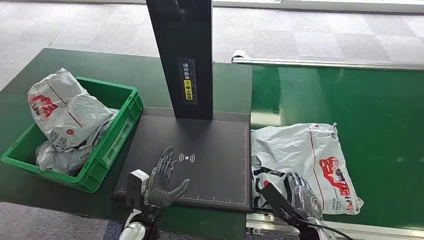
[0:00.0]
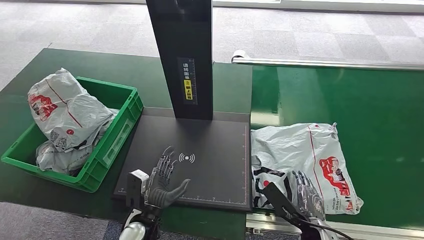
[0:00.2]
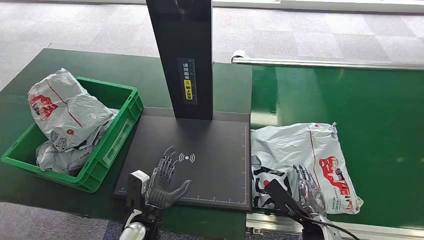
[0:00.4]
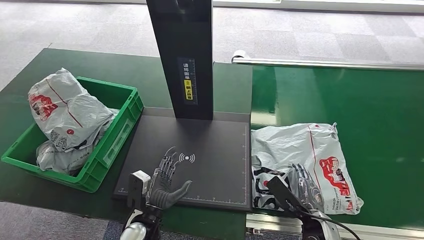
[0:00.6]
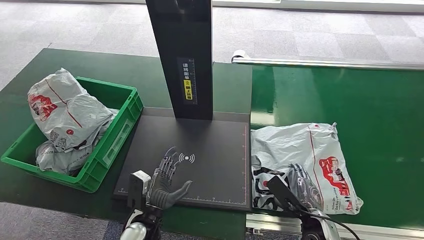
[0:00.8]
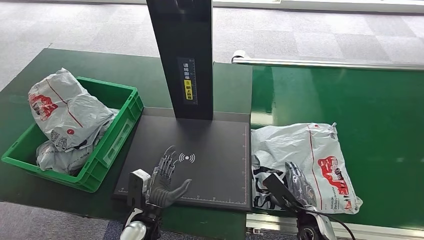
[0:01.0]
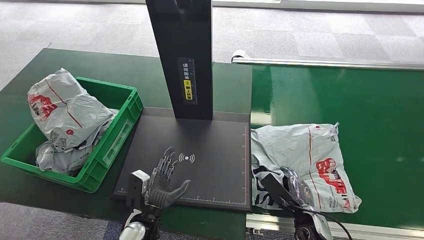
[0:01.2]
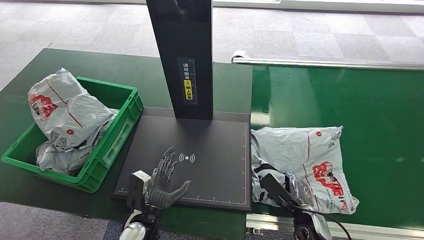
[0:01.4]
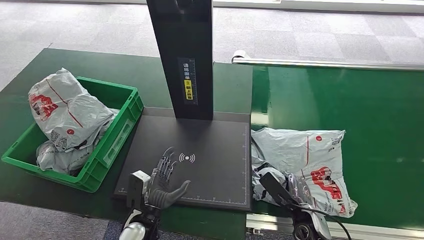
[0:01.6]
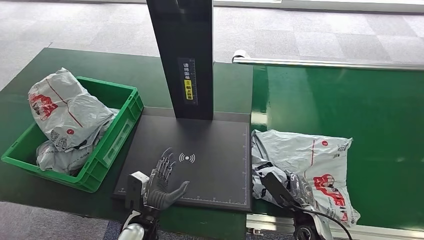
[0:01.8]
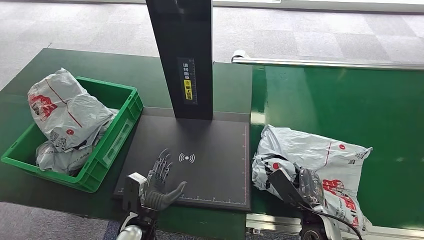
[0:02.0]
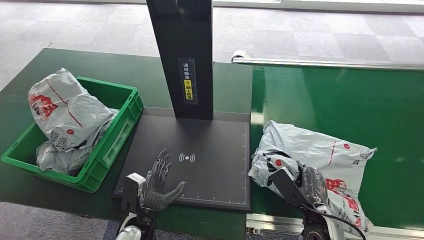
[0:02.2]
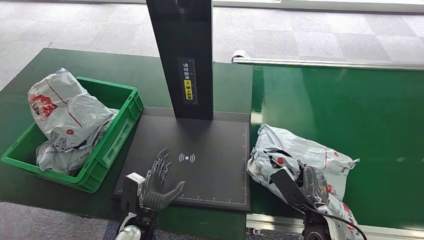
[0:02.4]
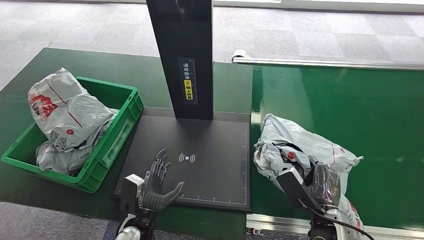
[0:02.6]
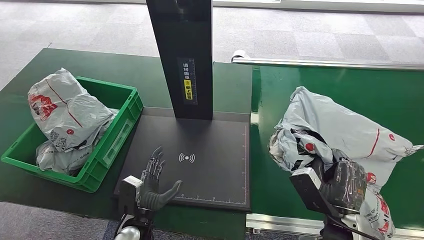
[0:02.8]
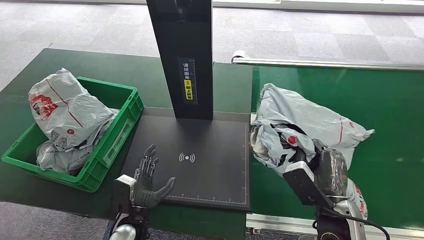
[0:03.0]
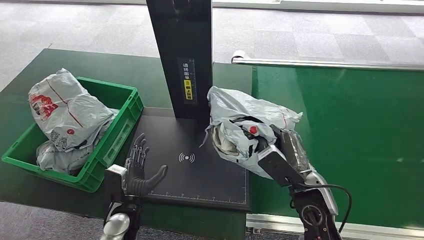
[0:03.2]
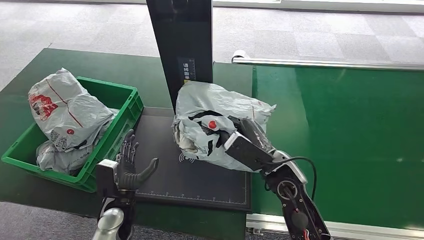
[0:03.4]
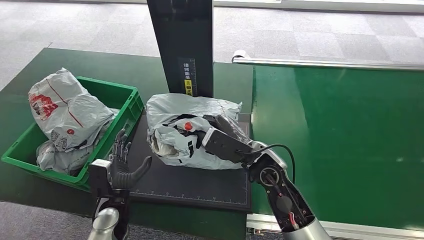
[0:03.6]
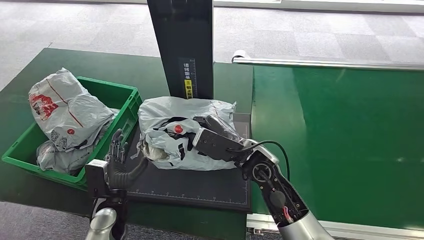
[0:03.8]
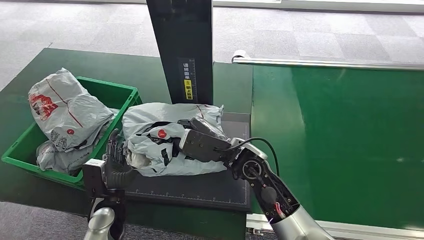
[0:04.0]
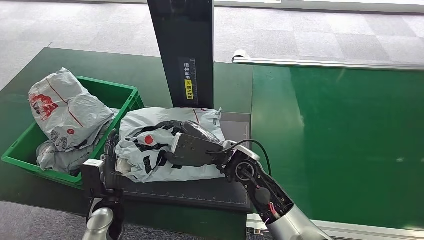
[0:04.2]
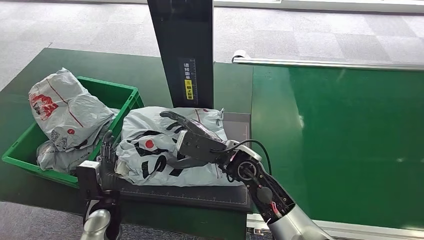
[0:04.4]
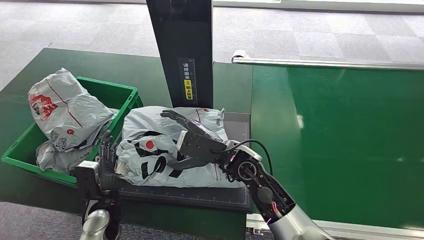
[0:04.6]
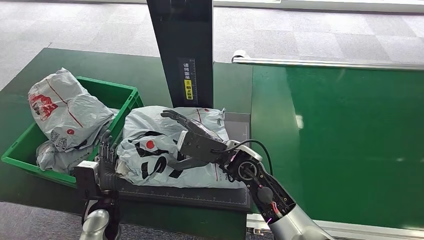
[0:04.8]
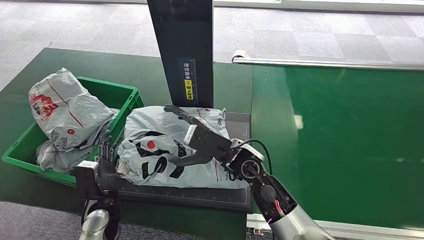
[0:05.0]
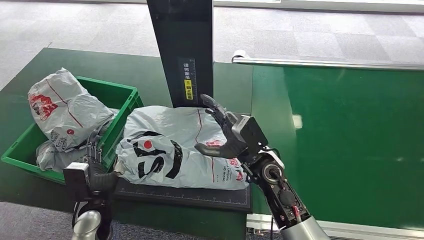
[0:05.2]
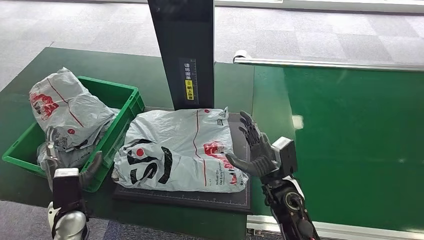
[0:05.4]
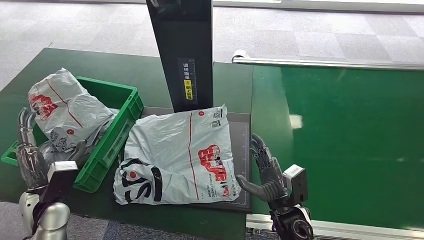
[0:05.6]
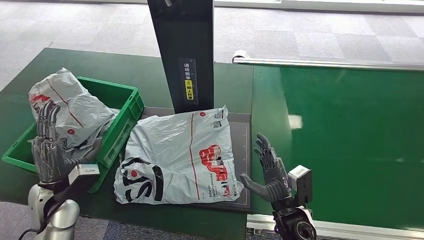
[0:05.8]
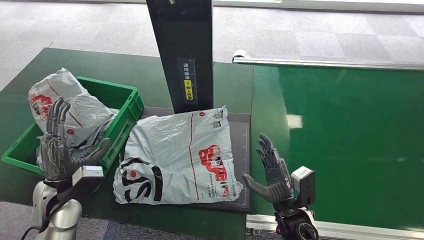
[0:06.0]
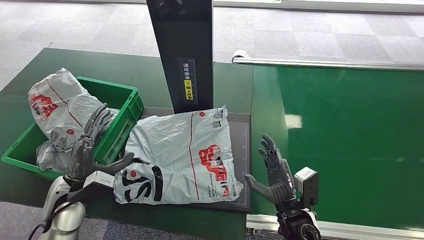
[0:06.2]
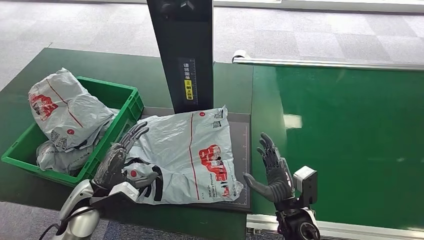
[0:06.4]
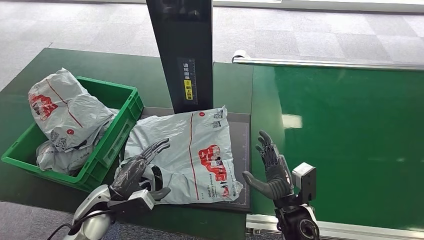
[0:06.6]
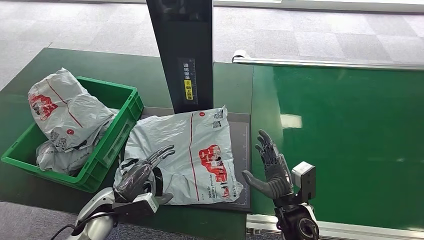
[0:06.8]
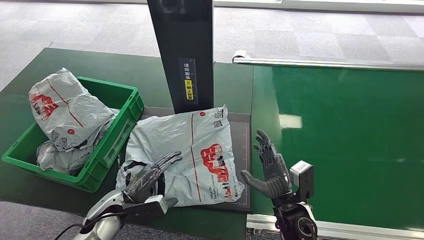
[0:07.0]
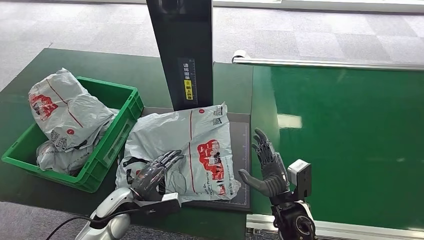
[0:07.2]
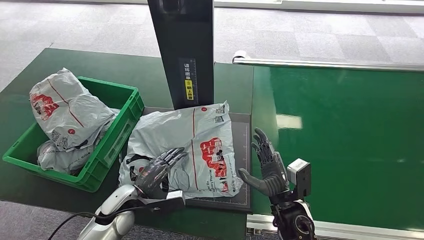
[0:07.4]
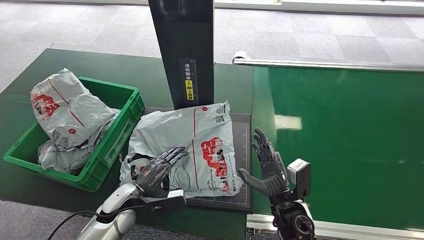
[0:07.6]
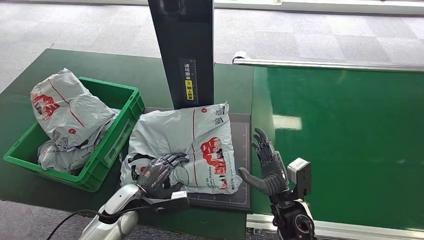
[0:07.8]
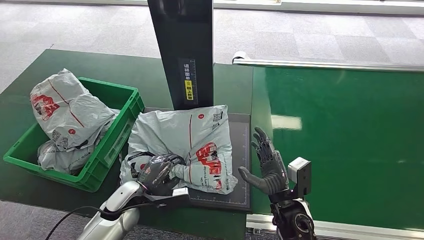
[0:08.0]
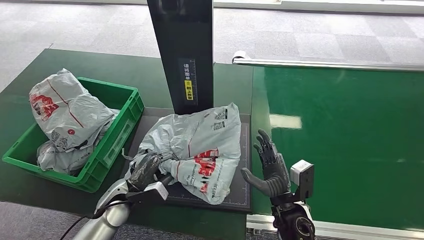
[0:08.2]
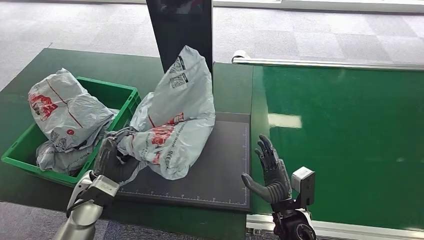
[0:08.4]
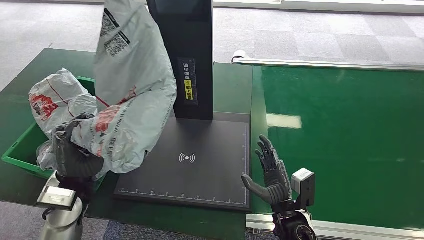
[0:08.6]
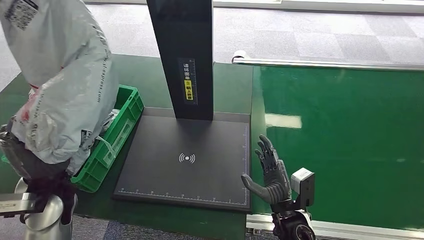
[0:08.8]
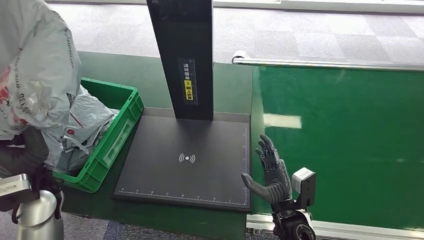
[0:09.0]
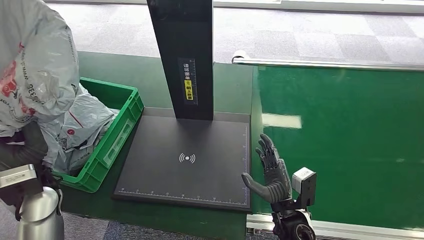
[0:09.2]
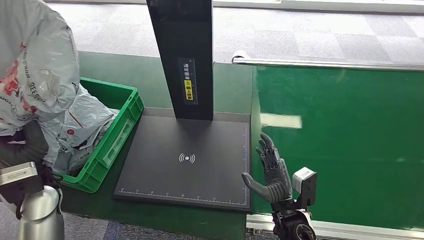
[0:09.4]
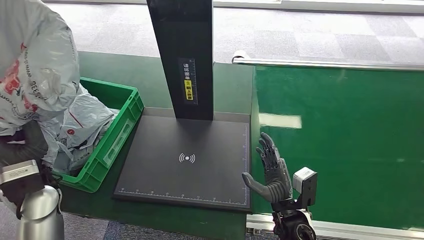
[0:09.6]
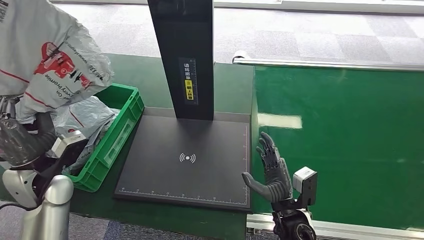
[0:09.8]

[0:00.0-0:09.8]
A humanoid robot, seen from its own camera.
Step, 0:00.0 to 0:03.2: Pick up the package from the conveyor belt.
Step, 0:03.6 to 0:05.4: Place the package onto the inbound machine.
Step, 0:05.6 to 0:09.0: Pick up the package from the inbound machine.
0:01.4 to 0:02.8: The right hand shifts approximately 10 cm upward.
0:04.2 to 0:05.6: The right hand travels to the right, downward and backward by approximately 20 cm. The left hand is displaced to the left and upward by approximately 15 cm.
0:05.6 to 0:07.0: The left hand shifts approximately 10 cm to the right.
0:07.0 to 0:08.4: The left hand heads upward, covering about 5 cm.

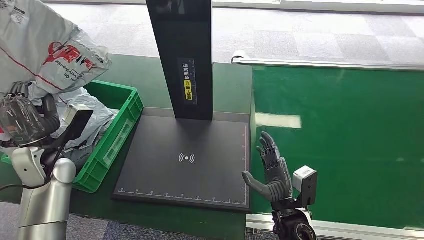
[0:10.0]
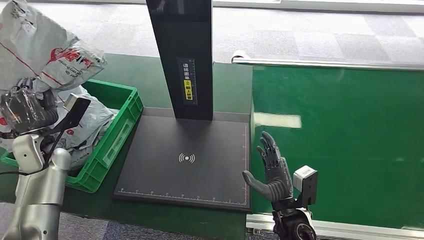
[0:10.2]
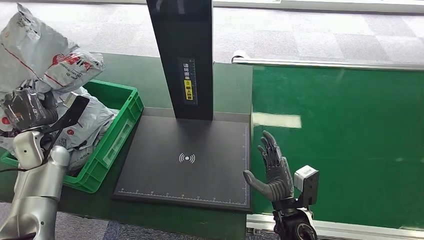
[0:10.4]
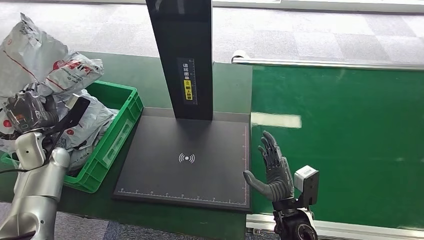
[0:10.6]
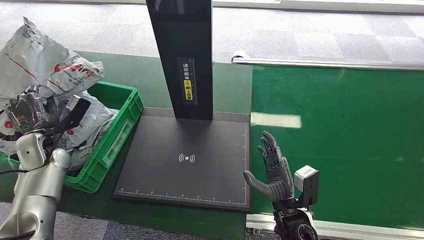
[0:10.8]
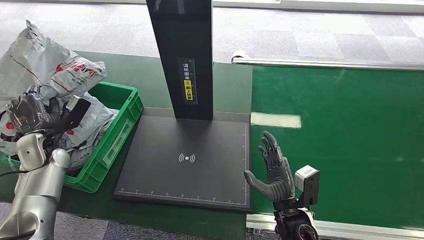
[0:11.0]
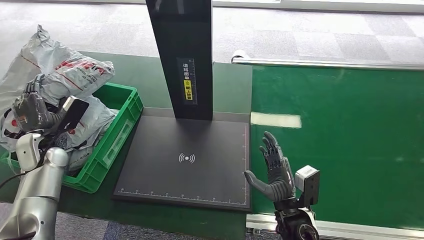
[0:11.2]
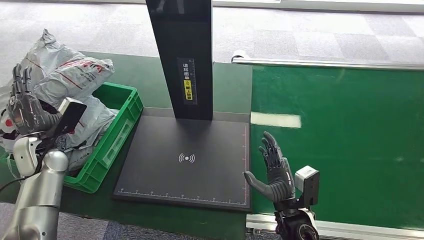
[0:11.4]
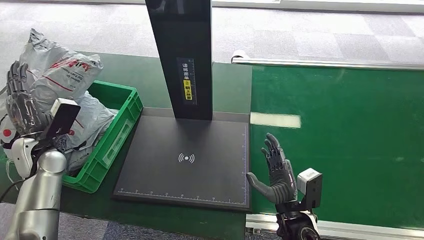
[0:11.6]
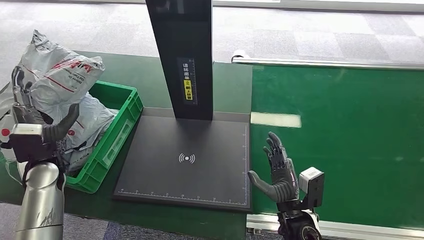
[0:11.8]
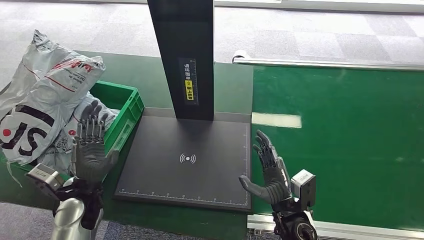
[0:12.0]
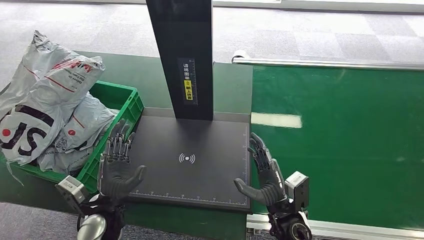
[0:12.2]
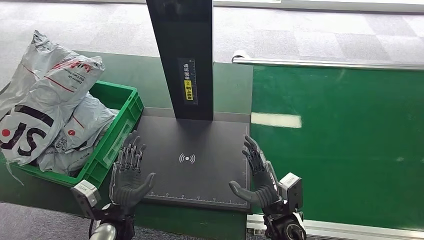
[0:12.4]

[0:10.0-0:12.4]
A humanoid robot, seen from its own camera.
Step, 0:10.0 to 0:12.4: Place the package into the parcel locker.
0:10.0 to 0:11.2: The left hand heads to the left, covering roughly 5 cm.
0:11.2 to 0:12.4: The left hand heads to the right and backward, covering some 30 cm.
